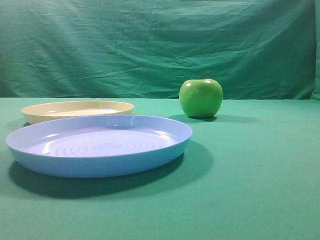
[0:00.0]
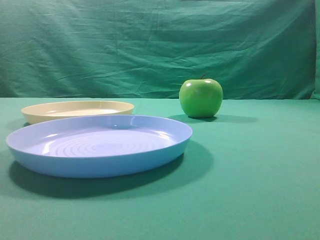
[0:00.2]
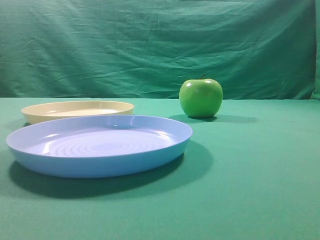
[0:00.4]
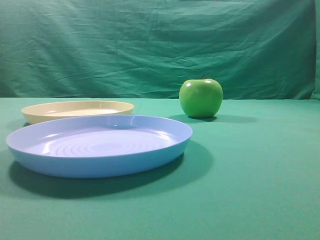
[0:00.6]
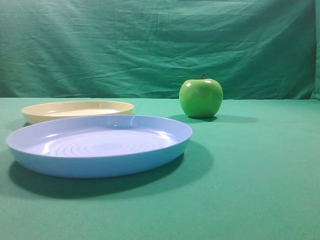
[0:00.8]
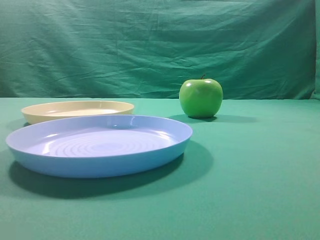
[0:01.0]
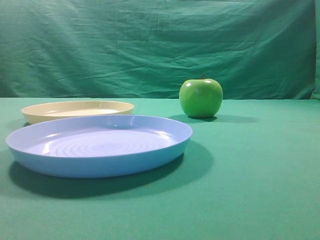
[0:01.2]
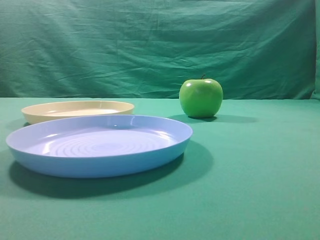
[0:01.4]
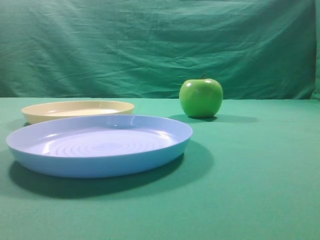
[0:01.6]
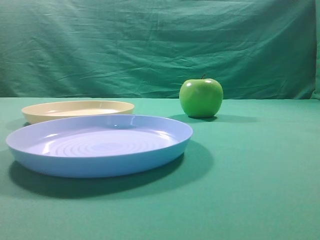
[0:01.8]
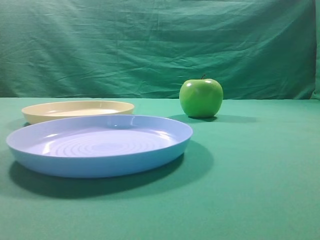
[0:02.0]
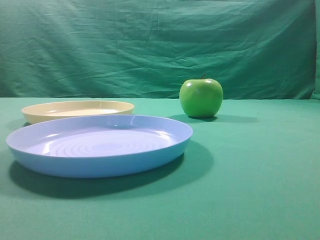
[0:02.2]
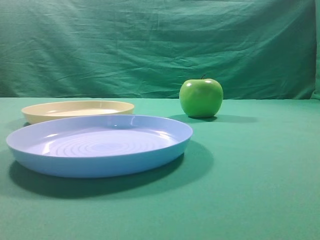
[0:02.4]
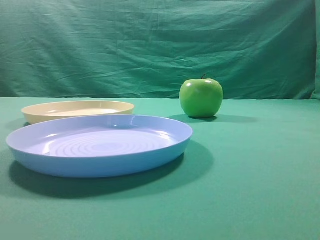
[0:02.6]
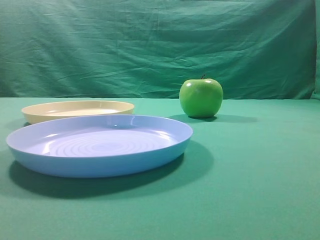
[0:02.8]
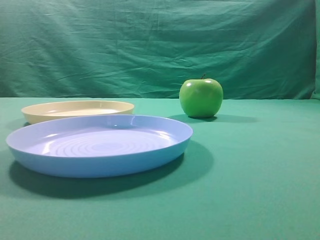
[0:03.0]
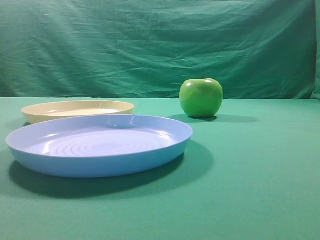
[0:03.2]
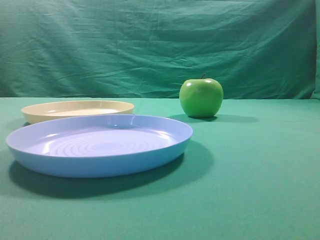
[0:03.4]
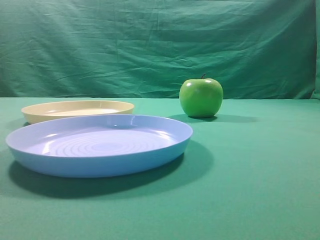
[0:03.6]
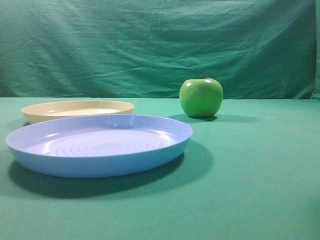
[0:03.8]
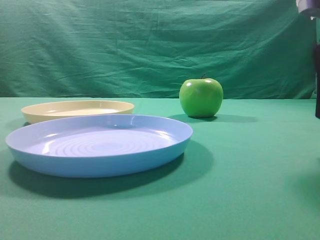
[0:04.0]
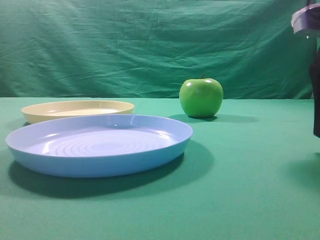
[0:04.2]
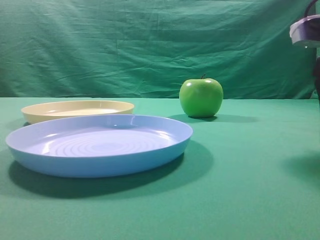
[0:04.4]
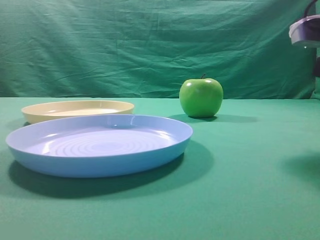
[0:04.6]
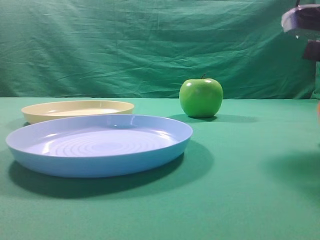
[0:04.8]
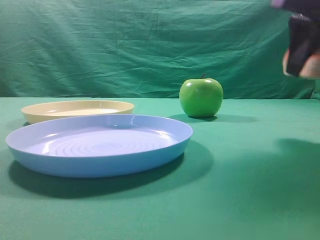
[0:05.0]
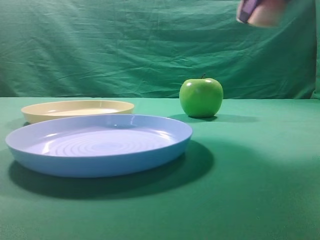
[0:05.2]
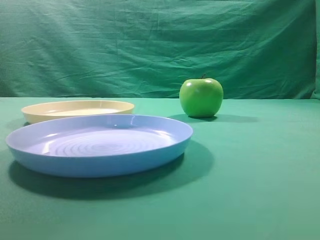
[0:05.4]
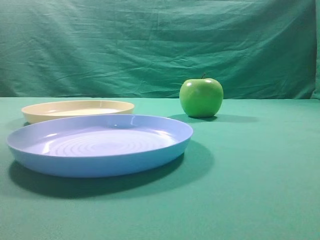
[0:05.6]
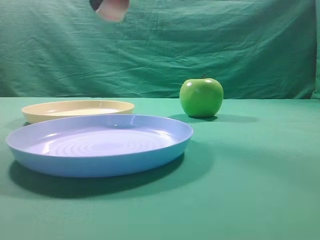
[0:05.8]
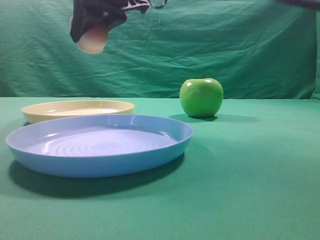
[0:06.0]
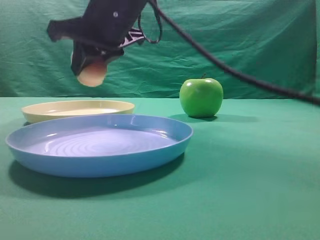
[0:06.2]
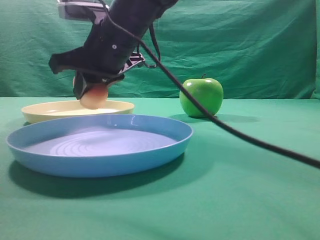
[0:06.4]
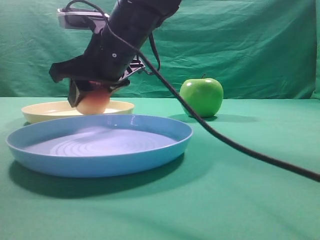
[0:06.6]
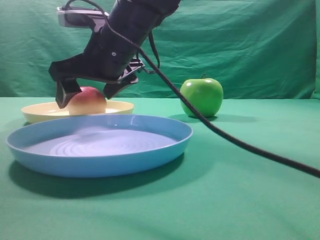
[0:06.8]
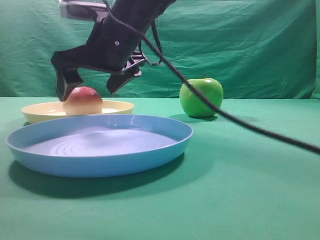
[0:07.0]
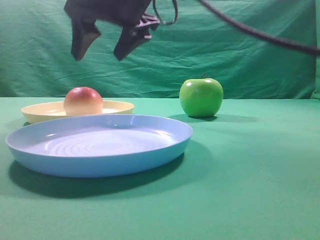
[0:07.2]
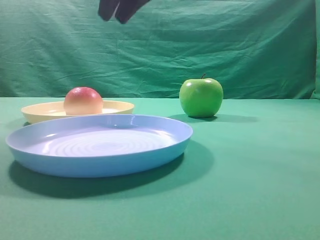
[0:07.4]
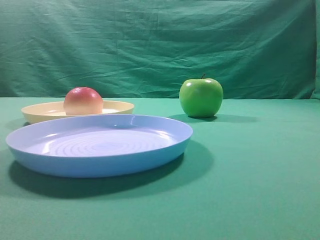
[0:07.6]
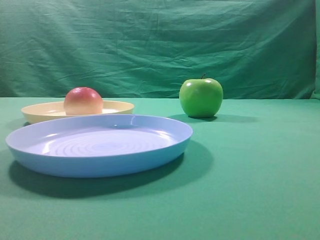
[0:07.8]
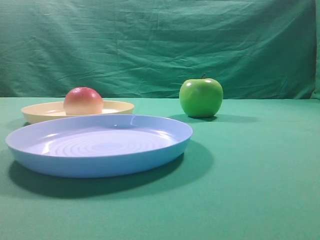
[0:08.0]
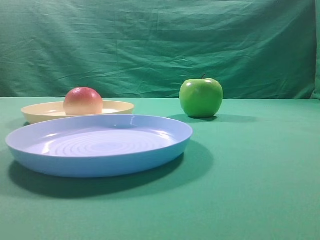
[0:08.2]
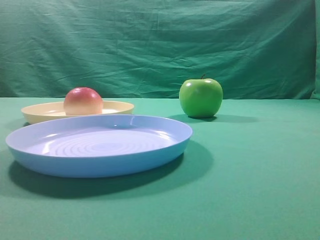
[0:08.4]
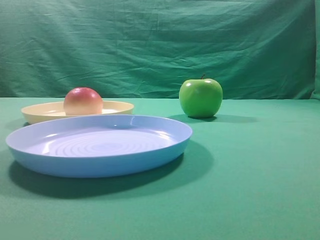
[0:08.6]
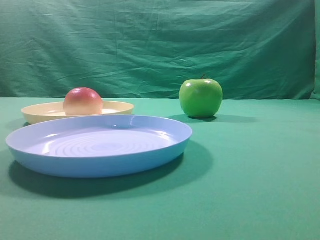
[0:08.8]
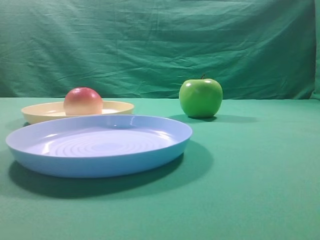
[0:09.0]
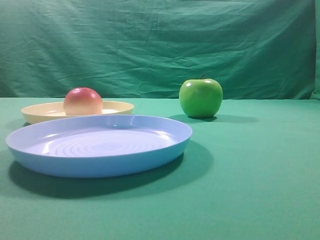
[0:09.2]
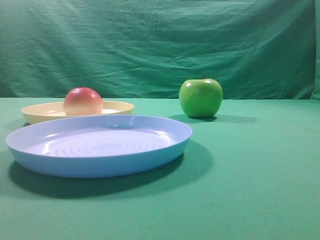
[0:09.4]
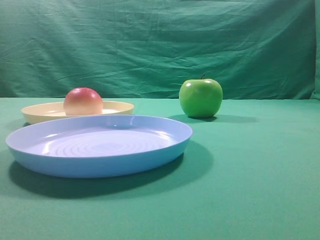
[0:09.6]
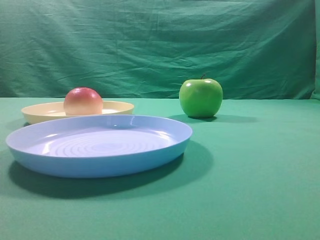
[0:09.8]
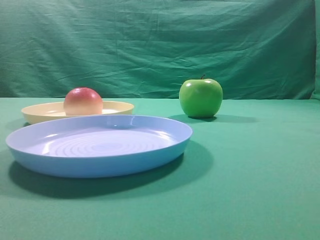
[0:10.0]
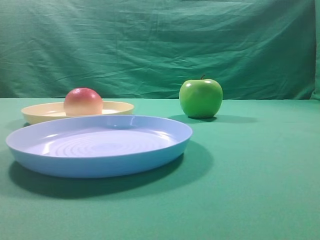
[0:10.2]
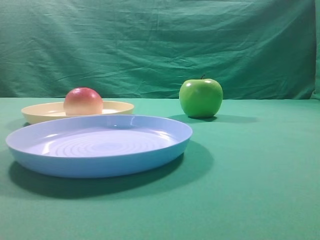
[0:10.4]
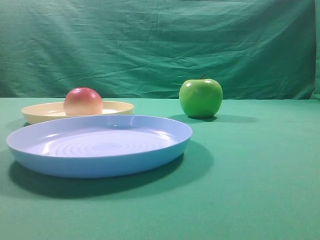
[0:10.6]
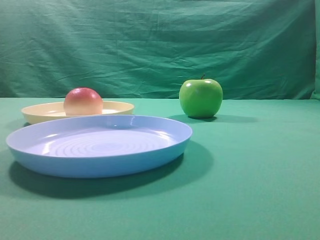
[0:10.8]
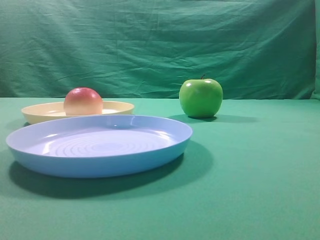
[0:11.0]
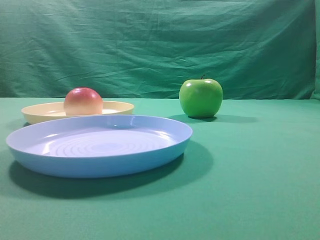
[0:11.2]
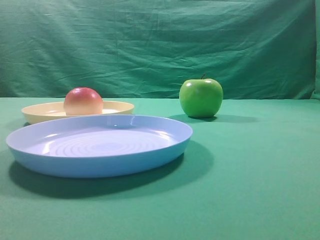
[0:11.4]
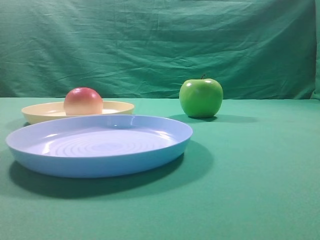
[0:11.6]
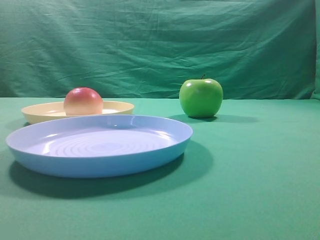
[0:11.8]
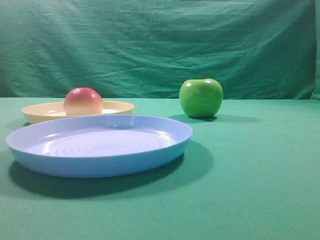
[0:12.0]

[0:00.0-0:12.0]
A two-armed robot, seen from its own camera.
Step, 0:05.0 to 0:07.0: Place the picked object on the yellow plate.

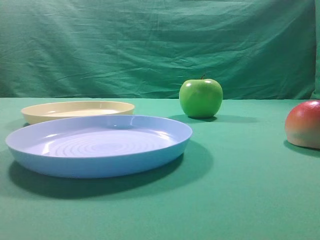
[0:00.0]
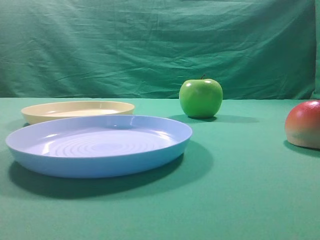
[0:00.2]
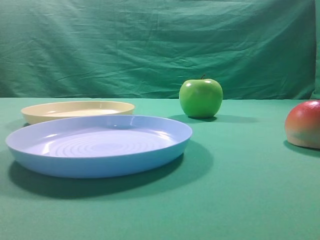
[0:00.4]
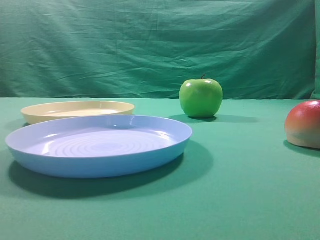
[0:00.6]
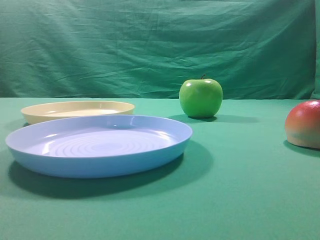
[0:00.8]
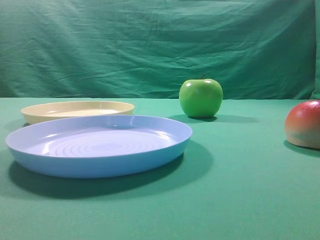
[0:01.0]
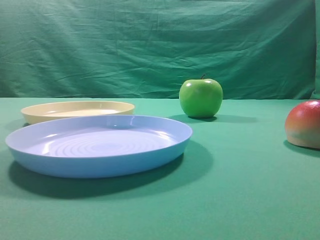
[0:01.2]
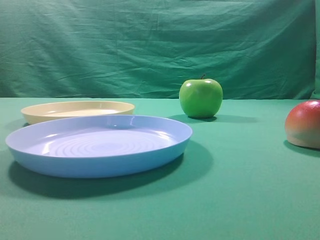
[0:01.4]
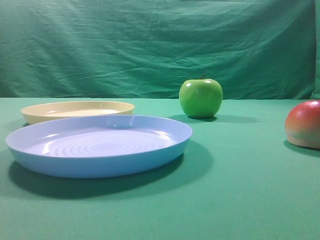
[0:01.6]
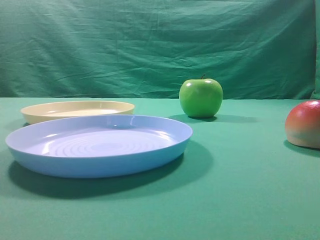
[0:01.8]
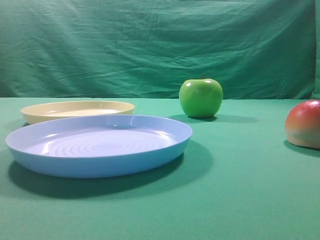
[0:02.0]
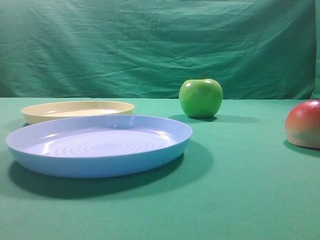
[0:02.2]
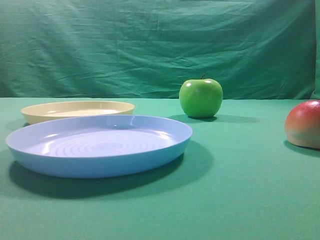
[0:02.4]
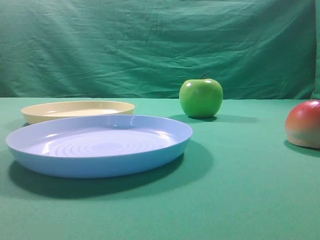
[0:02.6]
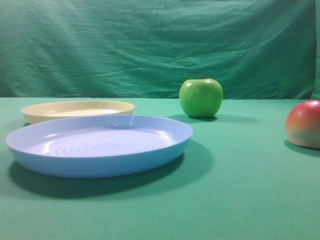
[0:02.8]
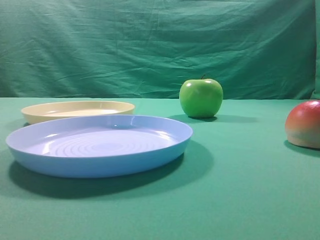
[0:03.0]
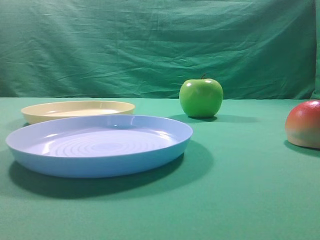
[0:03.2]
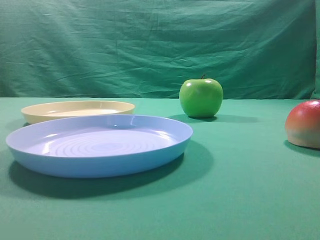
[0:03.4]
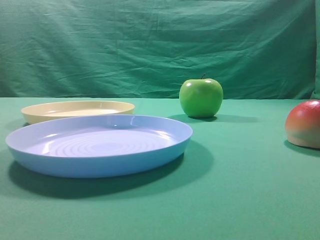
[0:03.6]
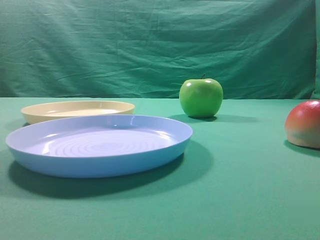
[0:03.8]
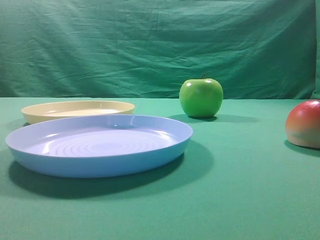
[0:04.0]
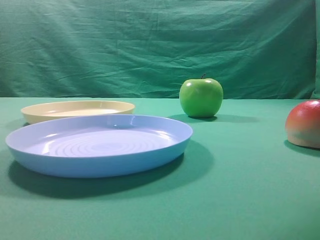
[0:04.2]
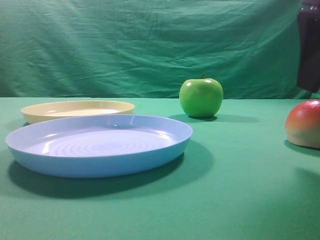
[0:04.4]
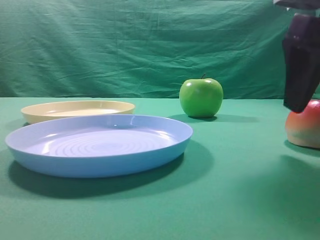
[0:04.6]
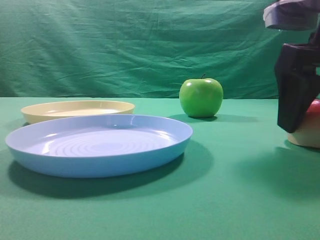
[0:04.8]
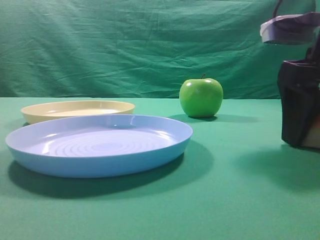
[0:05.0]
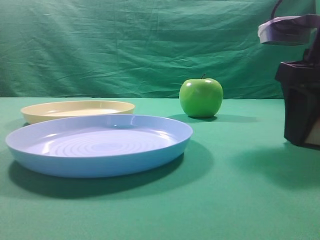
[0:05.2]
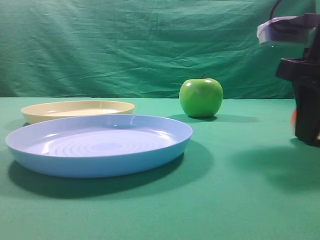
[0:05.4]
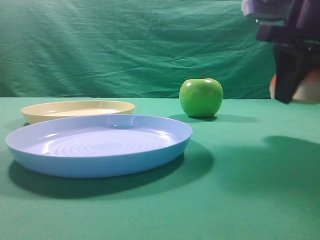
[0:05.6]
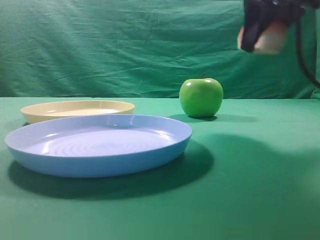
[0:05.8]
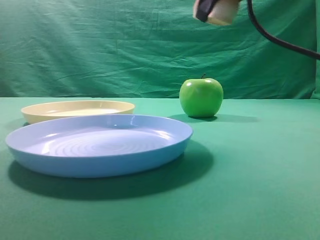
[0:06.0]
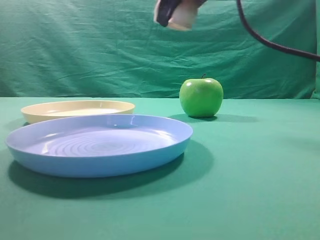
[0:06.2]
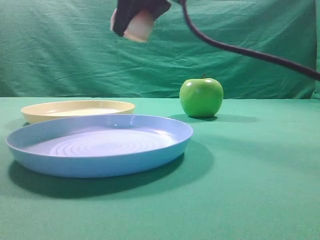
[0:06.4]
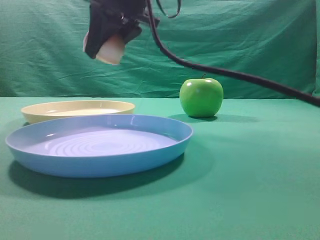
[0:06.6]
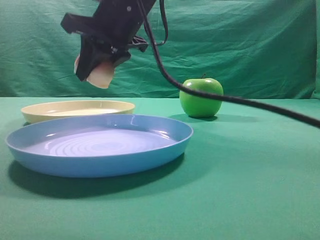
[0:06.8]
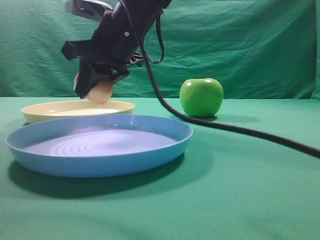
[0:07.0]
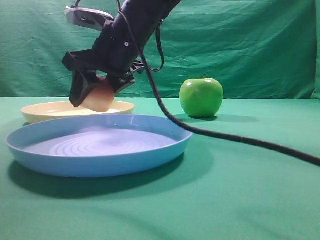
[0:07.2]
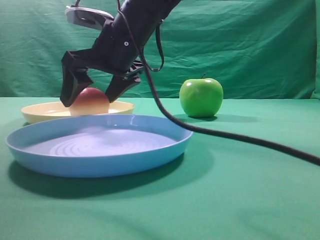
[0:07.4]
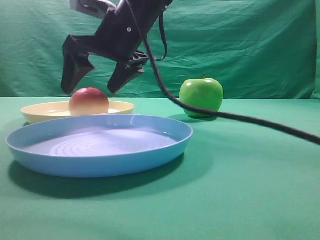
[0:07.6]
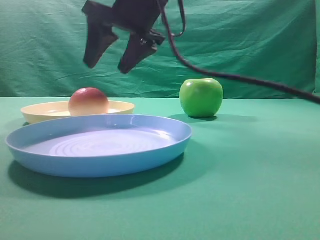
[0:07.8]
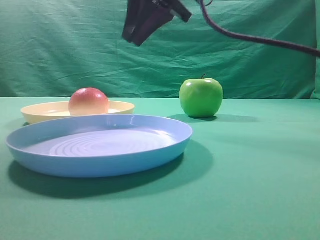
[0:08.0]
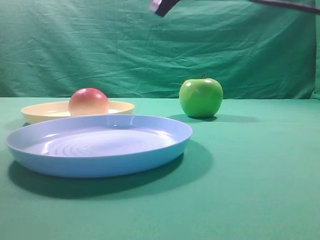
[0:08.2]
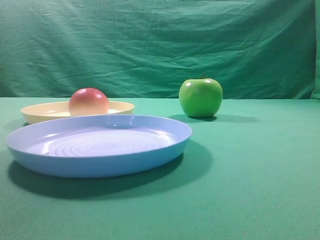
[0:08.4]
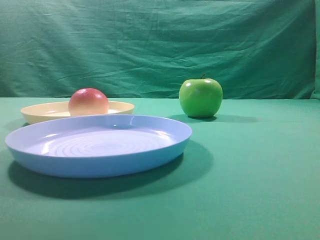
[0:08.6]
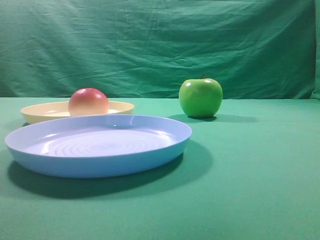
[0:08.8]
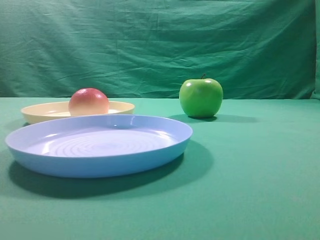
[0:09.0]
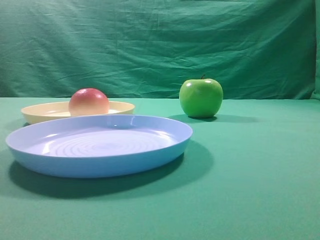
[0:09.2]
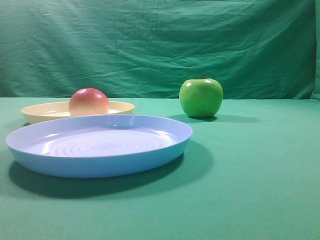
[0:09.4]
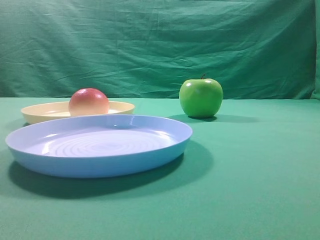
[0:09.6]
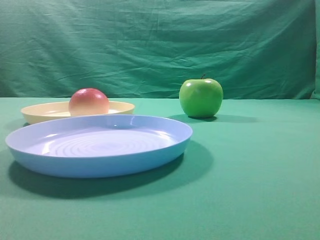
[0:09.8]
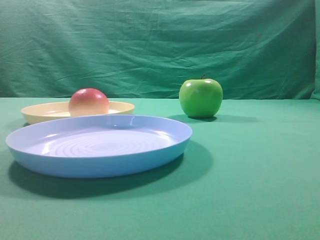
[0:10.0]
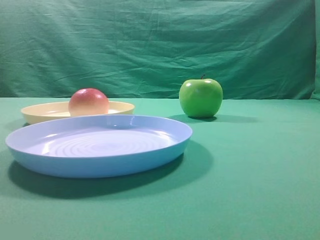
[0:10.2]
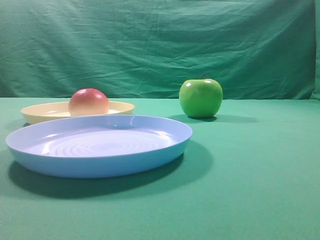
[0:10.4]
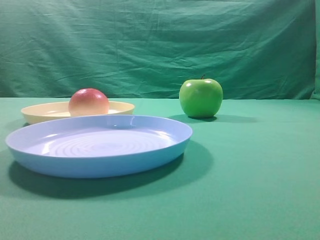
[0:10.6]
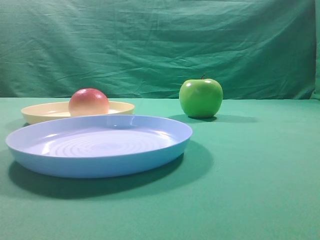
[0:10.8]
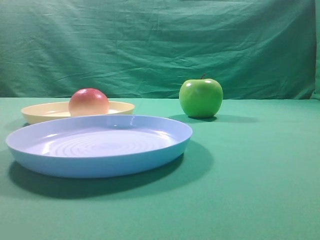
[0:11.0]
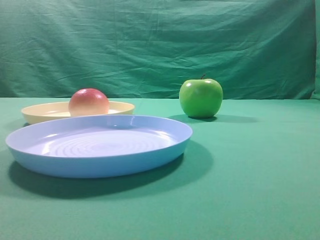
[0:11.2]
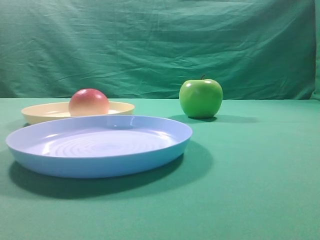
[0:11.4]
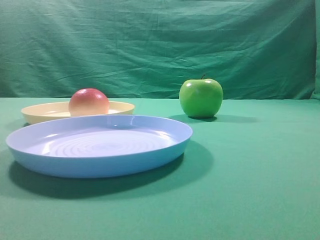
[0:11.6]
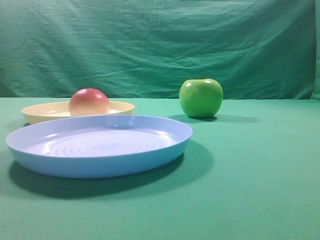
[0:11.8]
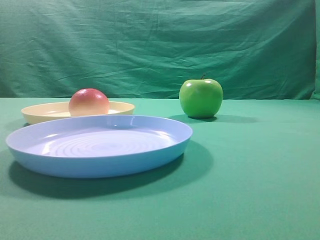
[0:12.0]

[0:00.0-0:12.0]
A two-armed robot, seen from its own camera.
Step, 0:05.8 to 0:07.8: Place the picked object on the yellow plate.
